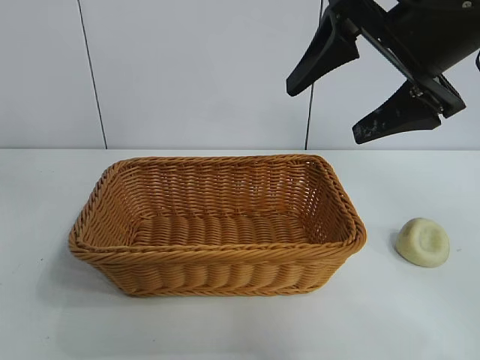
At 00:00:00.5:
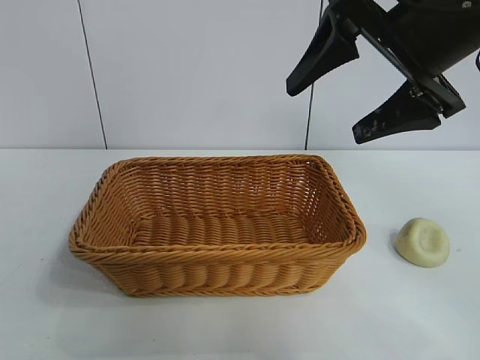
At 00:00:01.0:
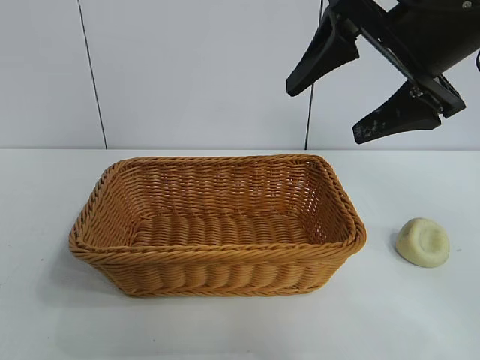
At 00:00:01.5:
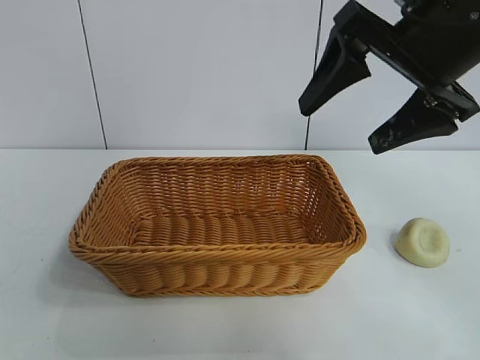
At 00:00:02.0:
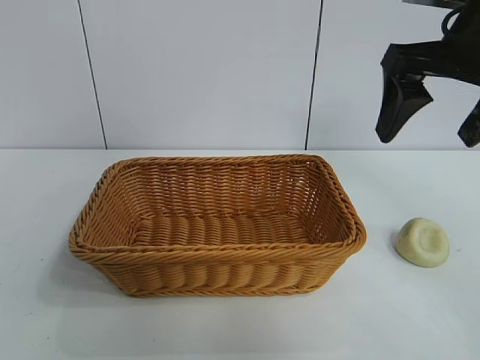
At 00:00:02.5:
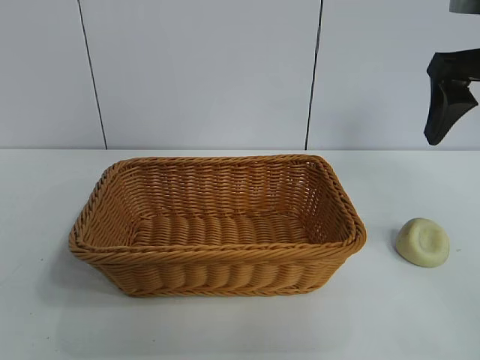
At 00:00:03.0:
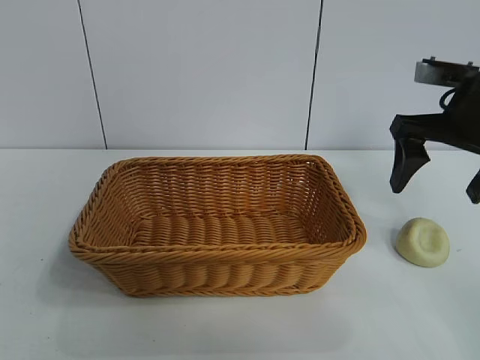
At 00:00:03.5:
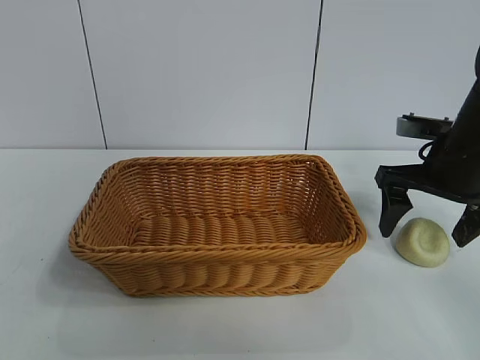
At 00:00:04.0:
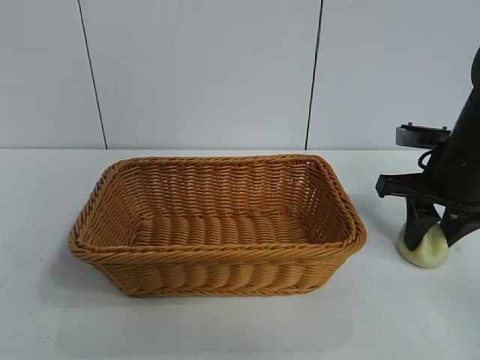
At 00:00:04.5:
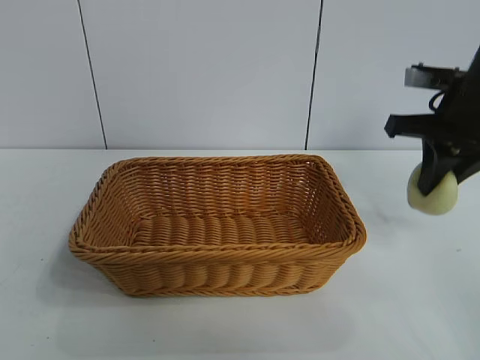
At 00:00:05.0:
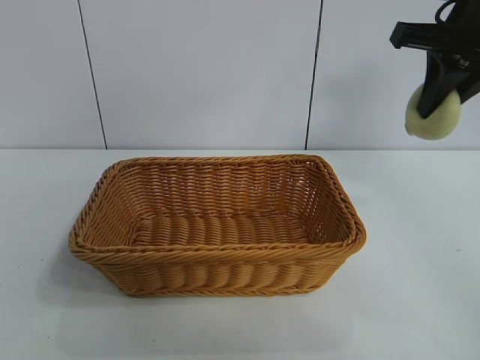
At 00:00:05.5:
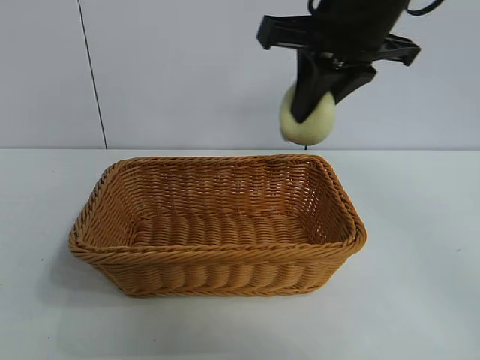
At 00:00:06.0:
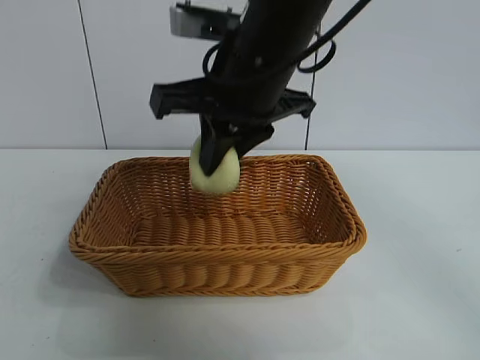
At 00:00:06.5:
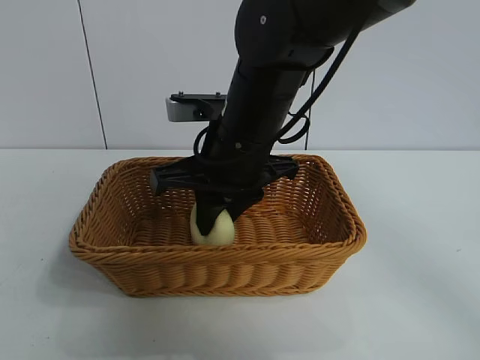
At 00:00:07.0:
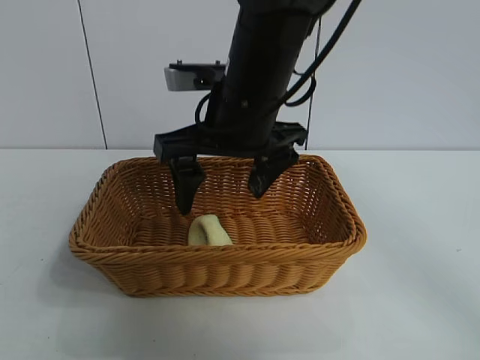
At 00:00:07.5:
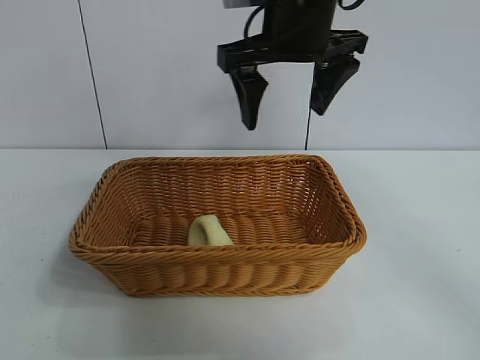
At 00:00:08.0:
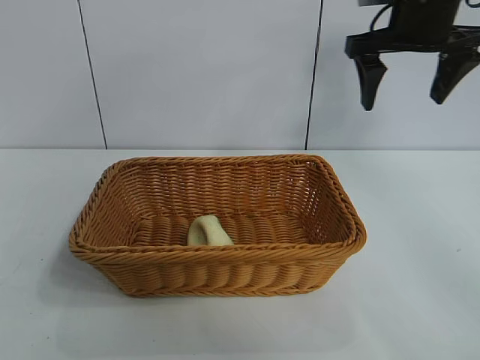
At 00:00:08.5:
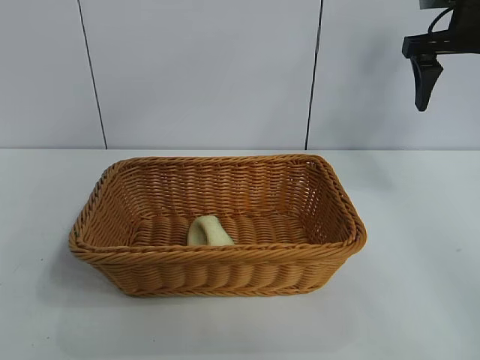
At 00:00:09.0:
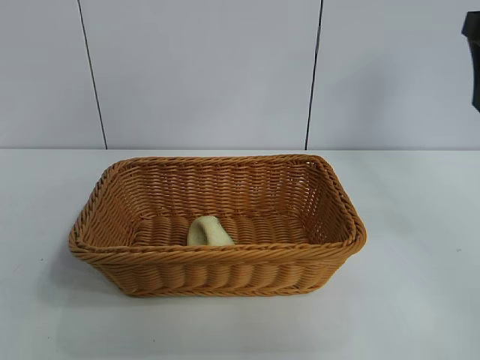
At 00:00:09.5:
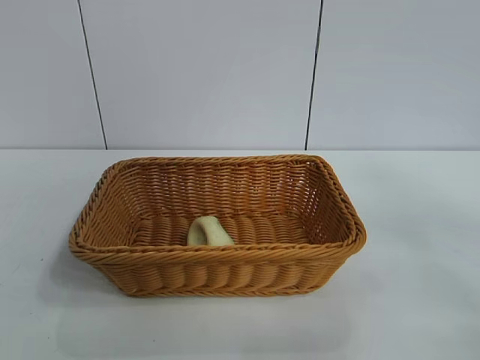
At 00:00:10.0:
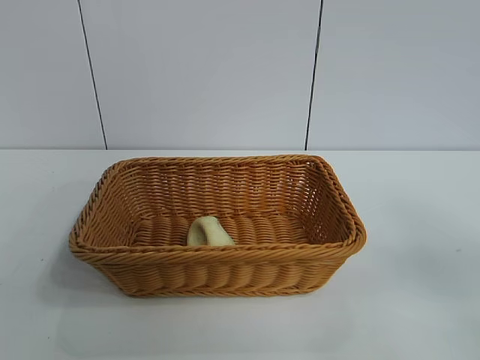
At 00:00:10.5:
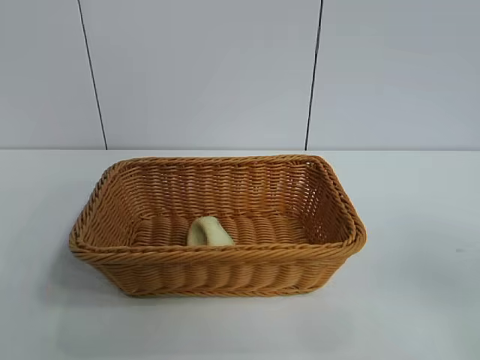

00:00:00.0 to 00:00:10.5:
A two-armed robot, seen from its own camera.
Task of the whole recording: pick up the egg yolk pastry and put it into the basket.
Step, 00:00:00.0 to 00:00:04.0: Grasp egg yolk pastry with right gripper.
Step, 00:00:04.5 to 00:00:06.5: Place the egg yolk pastry in the basket with right gripper.
